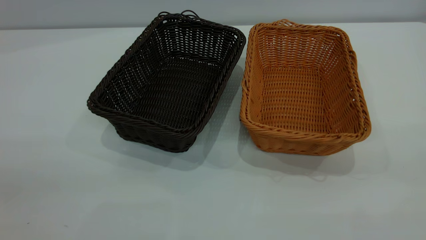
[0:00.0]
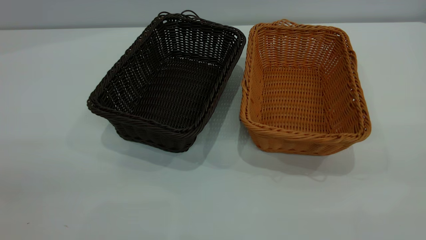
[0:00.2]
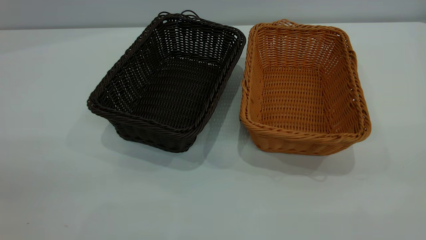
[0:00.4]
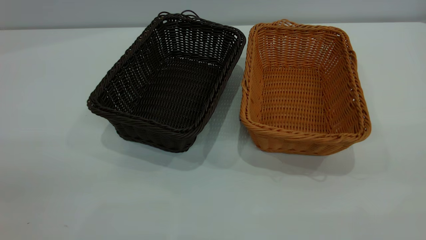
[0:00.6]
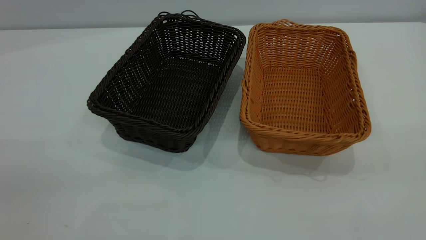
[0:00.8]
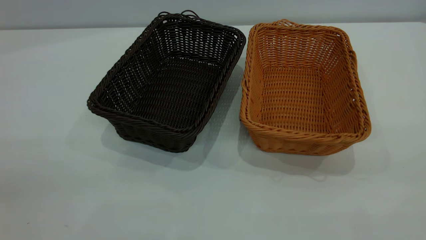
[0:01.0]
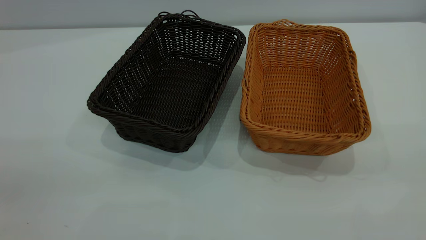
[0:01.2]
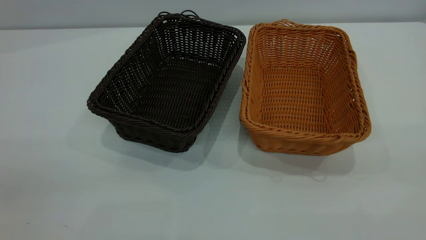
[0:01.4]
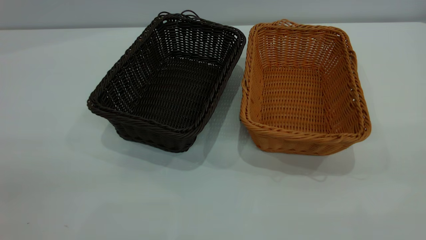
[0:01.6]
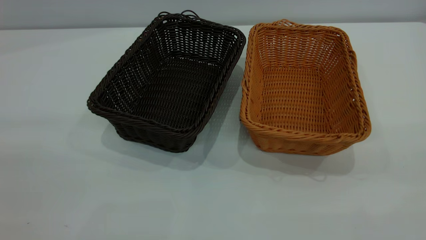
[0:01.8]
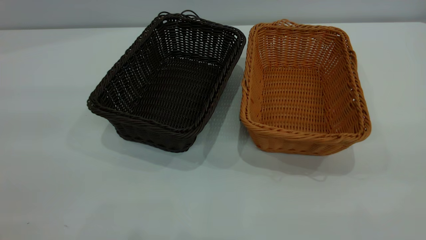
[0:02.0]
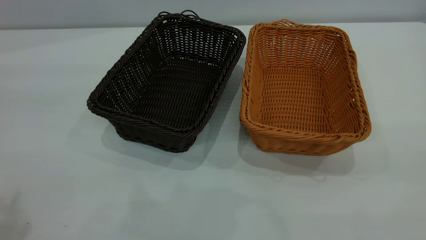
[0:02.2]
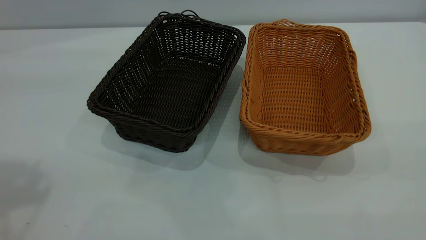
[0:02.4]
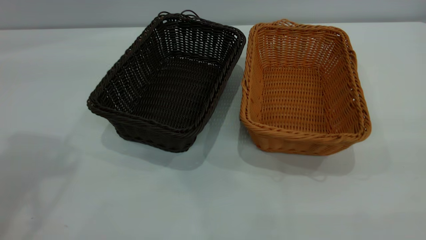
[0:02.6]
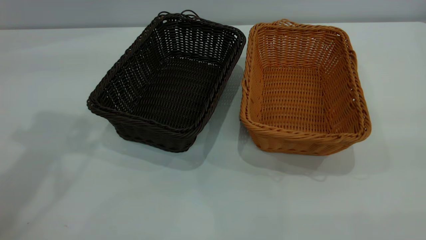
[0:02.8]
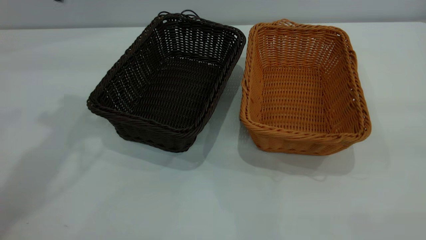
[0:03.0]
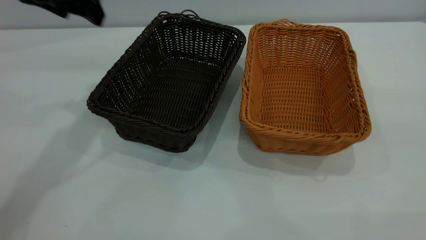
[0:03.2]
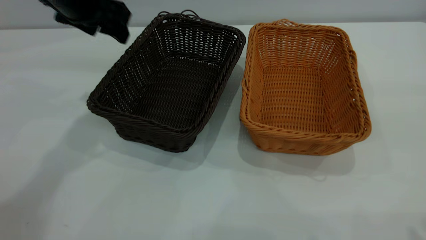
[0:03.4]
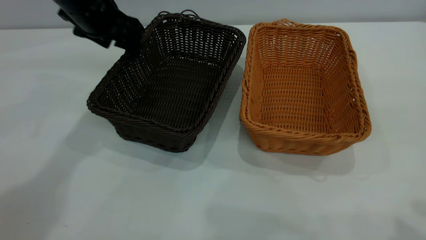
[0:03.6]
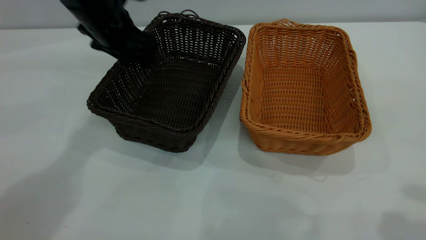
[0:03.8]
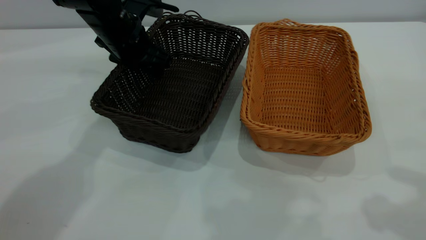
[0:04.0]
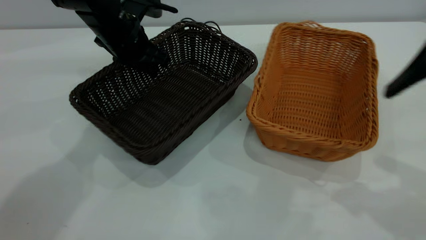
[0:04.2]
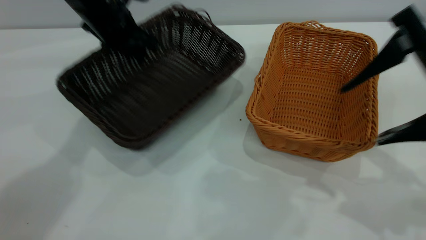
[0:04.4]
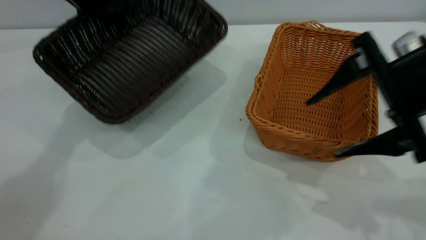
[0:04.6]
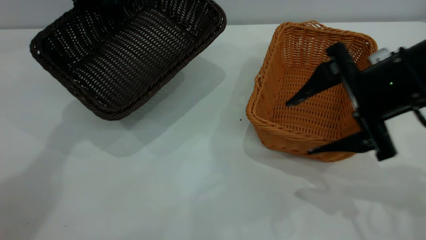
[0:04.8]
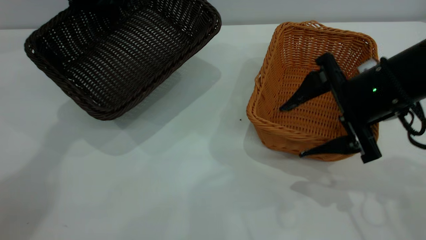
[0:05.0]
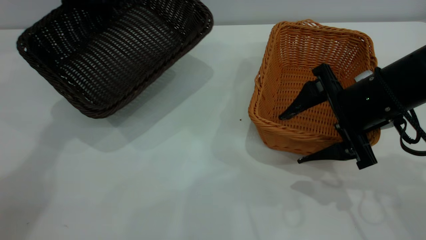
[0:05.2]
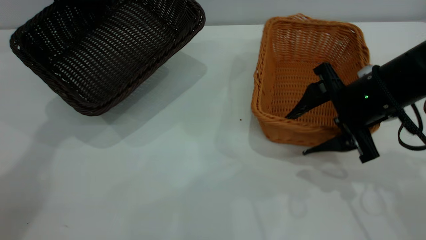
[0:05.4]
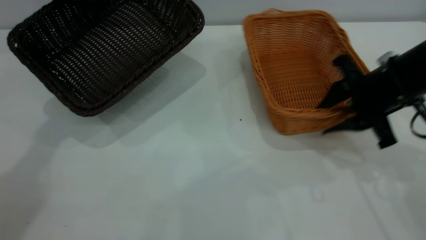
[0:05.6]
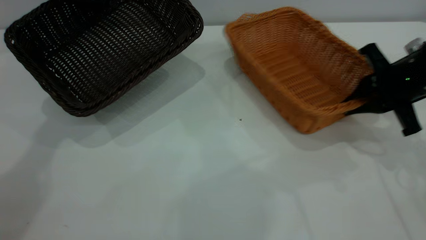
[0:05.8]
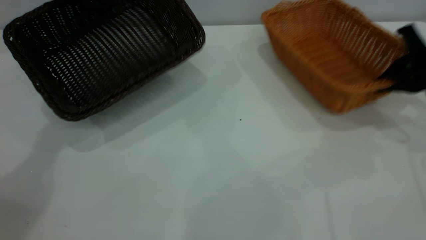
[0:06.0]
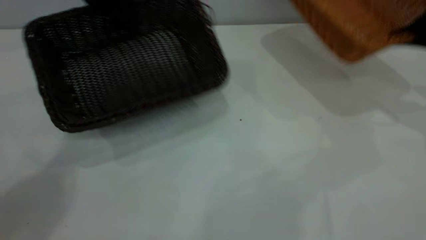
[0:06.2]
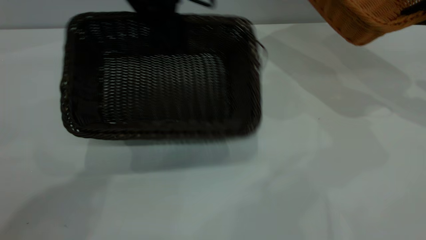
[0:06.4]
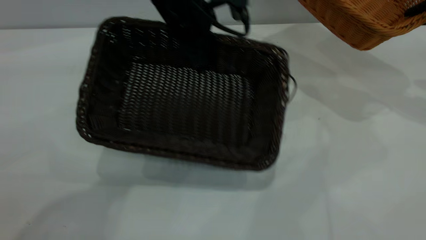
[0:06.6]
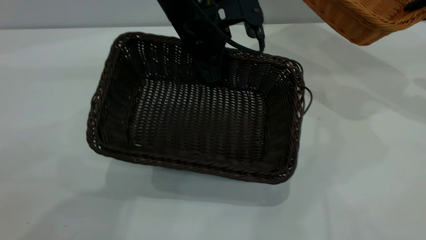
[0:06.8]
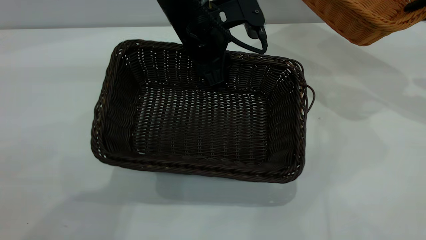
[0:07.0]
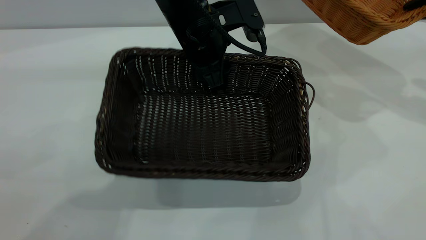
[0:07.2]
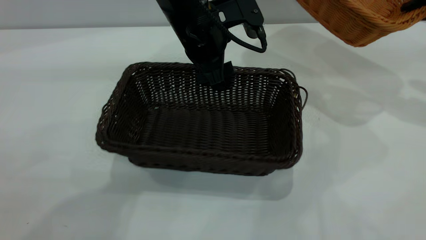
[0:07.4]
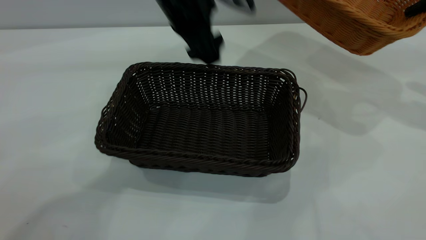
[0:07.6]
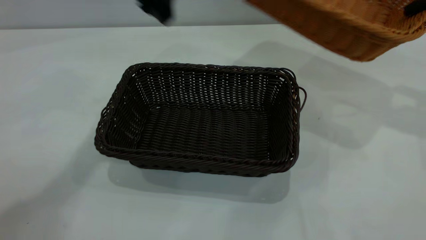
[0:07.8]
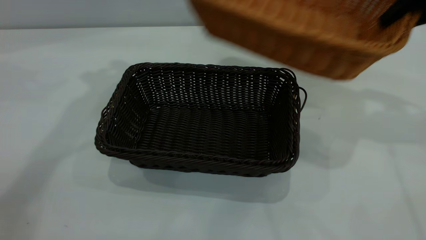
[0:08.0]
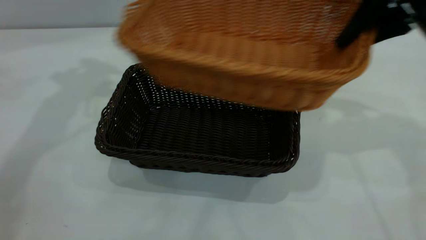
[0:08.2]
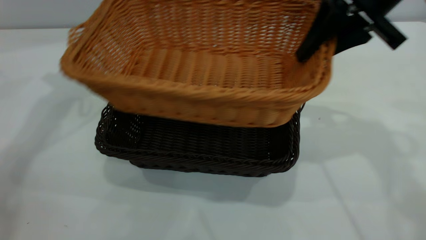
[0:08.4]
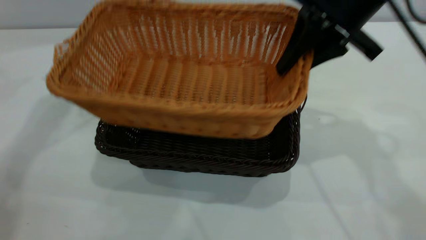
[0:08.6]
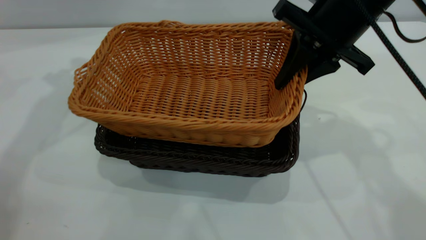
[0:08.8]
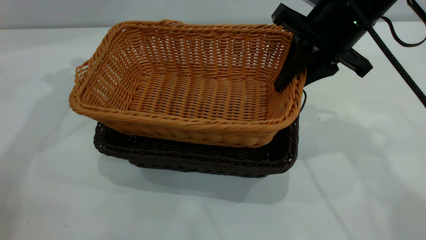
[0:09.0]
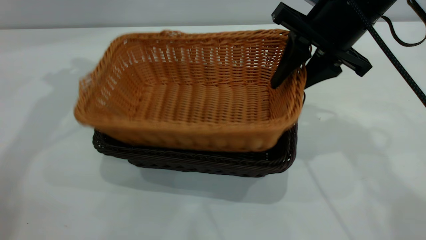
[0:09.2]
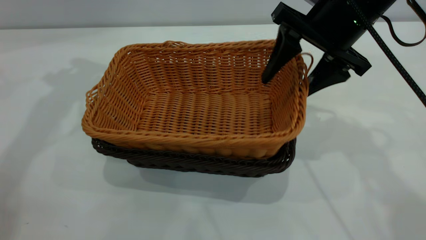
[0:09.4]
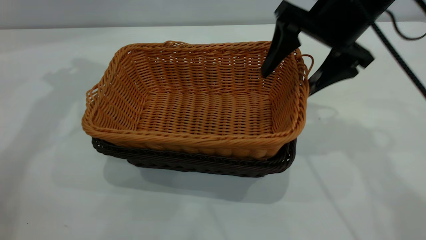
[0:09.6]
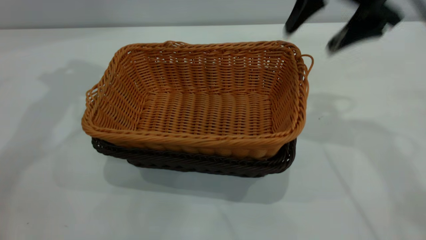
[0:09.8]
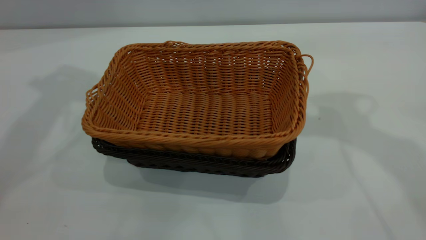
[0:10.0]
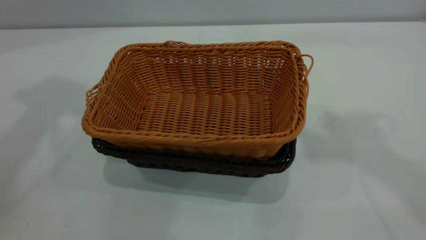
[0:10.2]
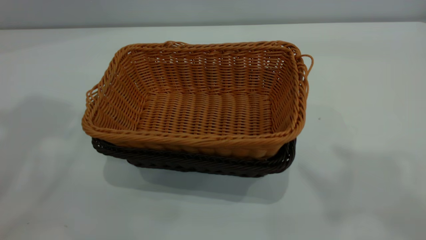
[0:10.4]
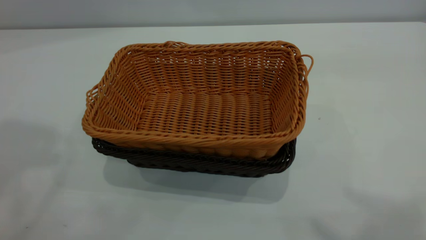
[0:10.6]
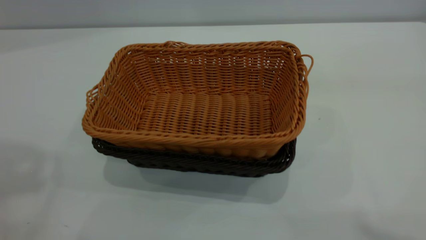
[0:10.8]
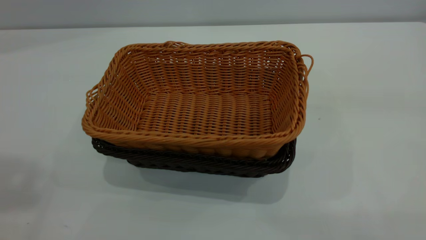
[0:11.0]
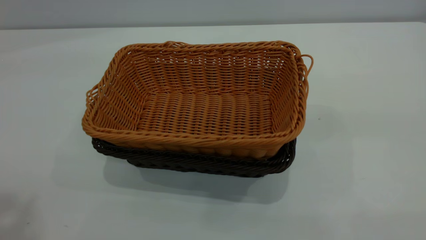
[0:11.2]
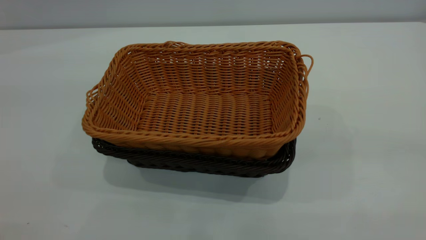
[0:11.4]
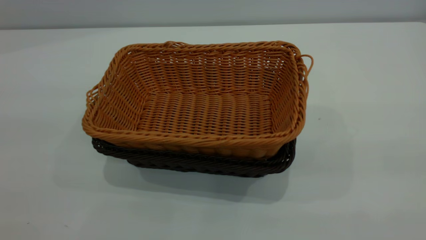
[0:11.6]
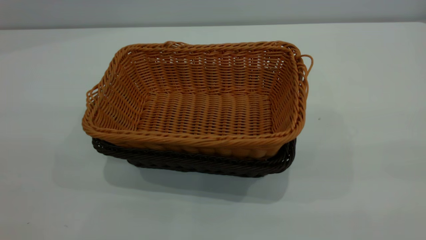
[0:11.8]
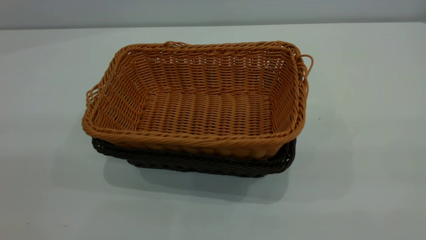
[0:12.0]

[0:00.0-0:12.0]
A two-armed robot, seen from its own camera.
Task of the whole recording: the left gripper grasp the black basket and place it in the center of the table, the right gripper grasp the brown basket and place it inside the black one.
Step, 0:00.0 to 0:06.0: Pick up the light basket with the right gripper.
Step, 0:06.2 to 0:07.4: Move the dark basket to the center of view.
Step, 0:07.8 to 0:09.6: Place the light basket on the dark basket.
0:00.0 to 0:01.6: Neither gripper changes place.
0:03.0 to 0:04.4: The left gripper heads downward, forward and to the right, covering roughly 20 cm, and closes up. Meanwhile the right gripper moves forward and downward, roughly 25 cm.
0:04.4 to 0:06.0: The right gripper moves forward, to the right and downward, about 20 cm, and closes; the left gripper ends up some 5 cm from where it was.
0:06.0 to 0:07.6: The right gripper moves upward, about 10 cm, while the left gripper shifts roughly 20 cm to the right and backward, and opens its fingers.
0:07.6 to 0:09.0: The grippers both shift to the left by some 20 cm.
0:09.0 to 0:10.4: The grippers both shift upward and backward by about 30 cm. The right gripper opens up.

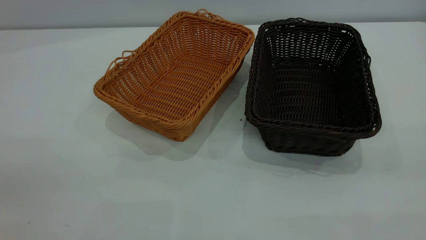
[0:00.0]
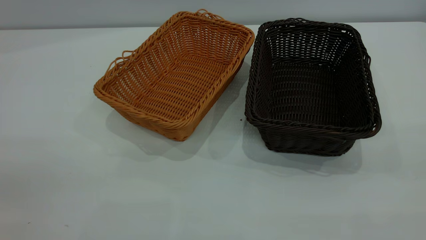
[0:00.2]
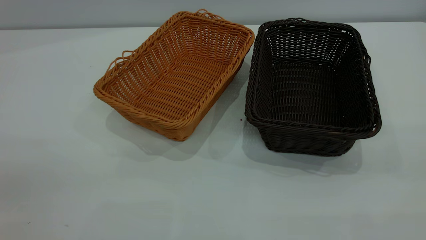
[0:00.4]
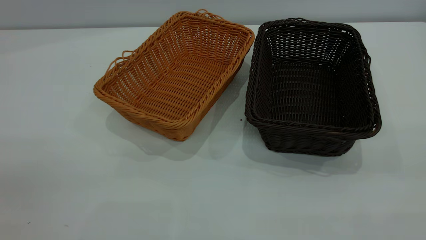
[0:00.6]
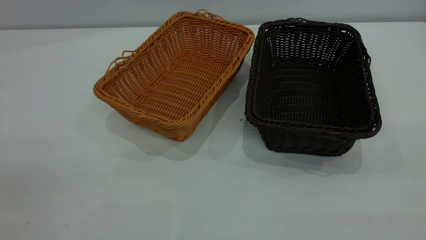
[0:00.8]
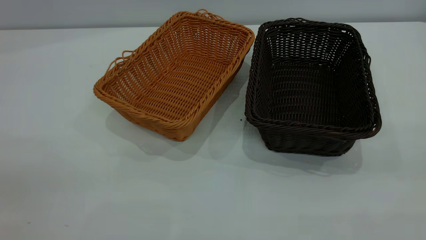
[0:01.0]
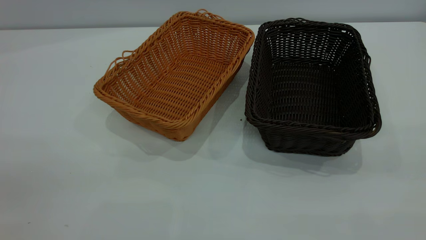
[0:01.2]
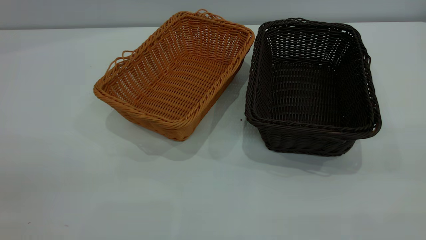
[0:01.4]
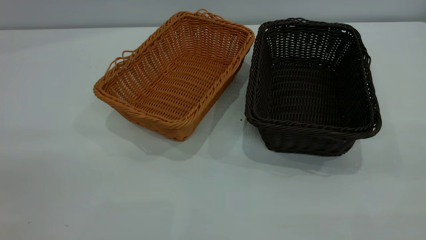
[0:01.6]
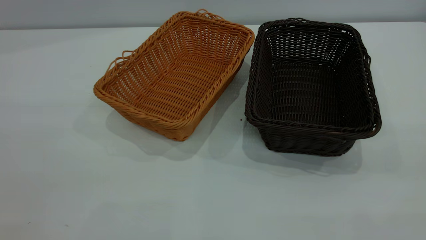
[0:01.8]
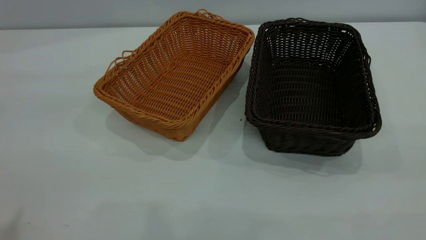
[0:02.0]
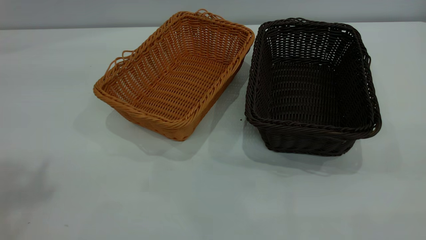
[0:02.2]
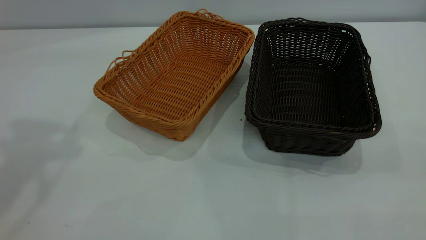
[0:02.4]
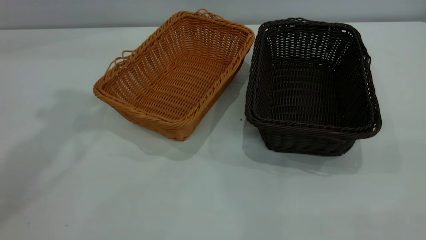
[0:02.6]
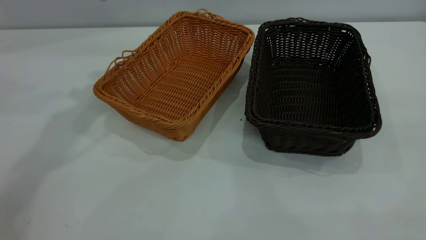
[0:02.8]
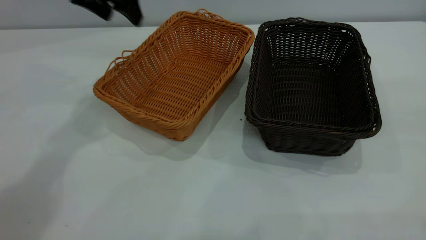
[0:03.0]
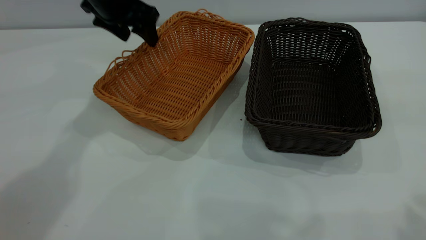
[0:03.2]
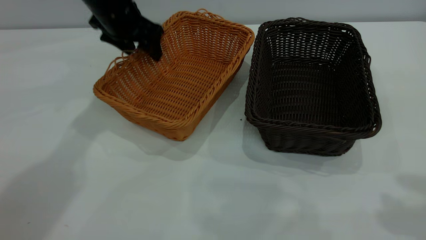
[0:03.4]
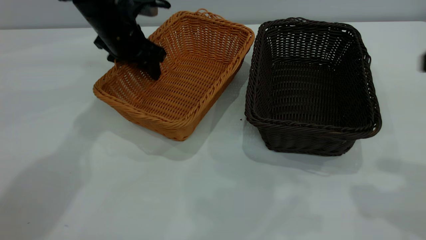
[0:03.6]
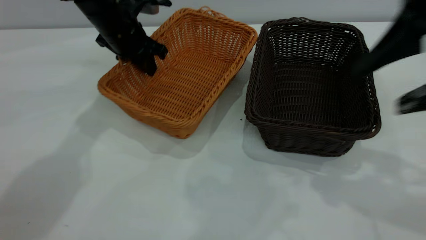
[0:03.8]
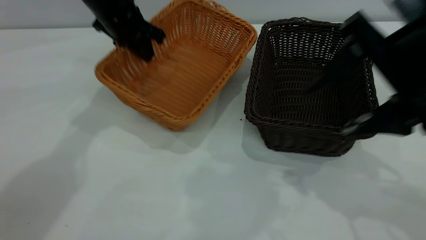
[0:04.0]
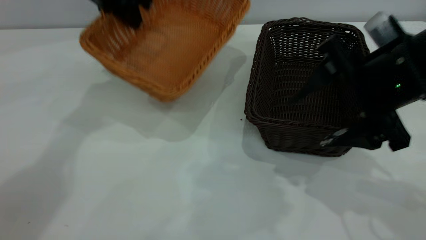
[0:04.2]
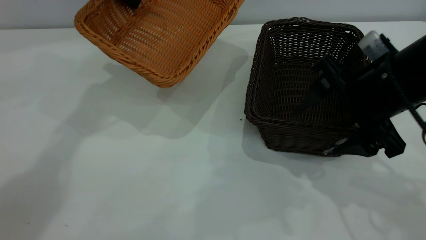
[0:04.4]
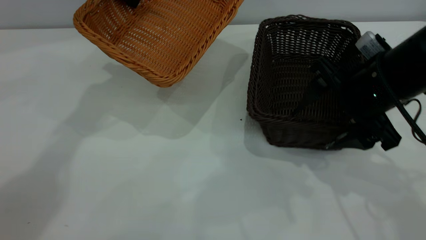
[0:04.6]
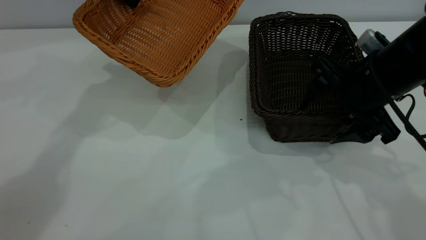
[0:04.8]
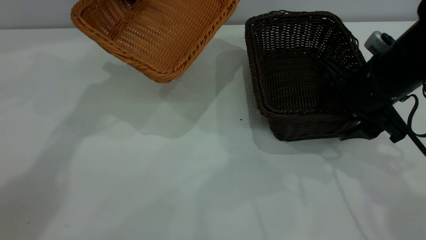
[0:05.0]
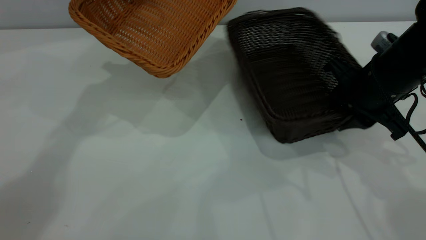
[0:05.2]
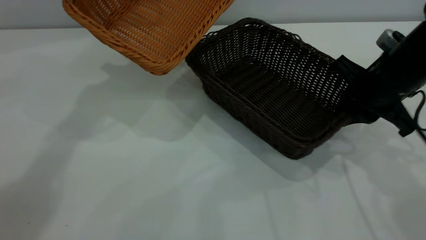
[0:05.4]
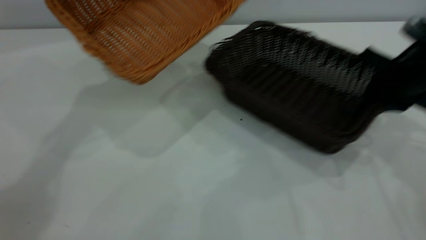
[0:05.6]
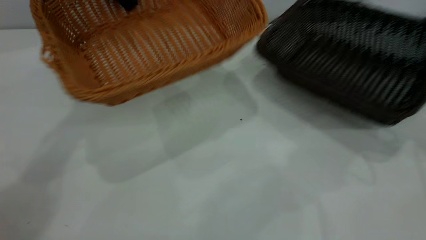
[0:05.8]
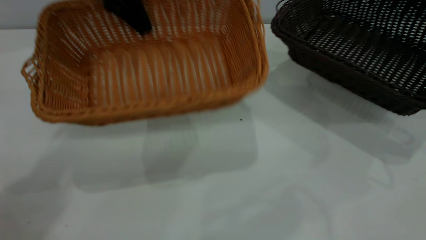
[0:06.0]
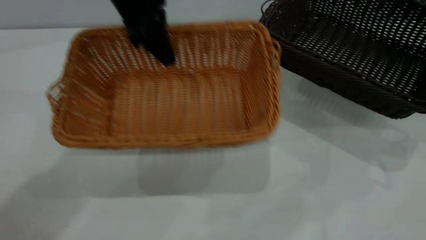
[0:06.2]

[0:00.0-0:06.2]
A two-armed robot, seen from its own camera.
Task of the whole recording: the left gripper grasp the brown basket and place it in the center of the table, the right gripper grasp the black basket and place it inside the brown one.
Step, 0:00.0 to 0:05.8: Pick up the light basket with the right gripper.
0:01.6 to 0:03.2: The left gripper travels forward and downward by some 50 cm; the right gripper moves forward, approximately 15 cm.
0:03.2 to 0:04.6: The left gripper moves upward, some 5 cm, and closes up. The right gripper is displaced downward, forward and to the left by approximately 25 cm.
0:04.6 to 0:06.2: The right gripper is displaced to the right by about 20 cm, and closes its fingers, while the left gripper goes roughly 10 cm to the right and backward.
